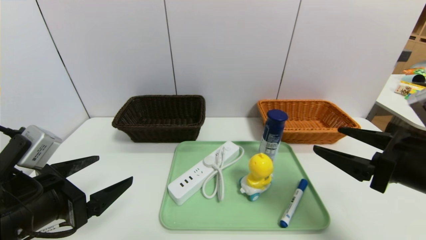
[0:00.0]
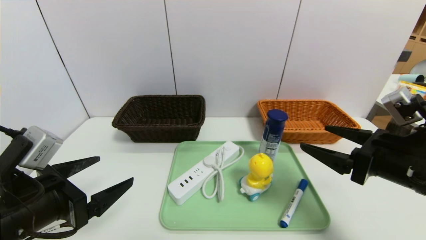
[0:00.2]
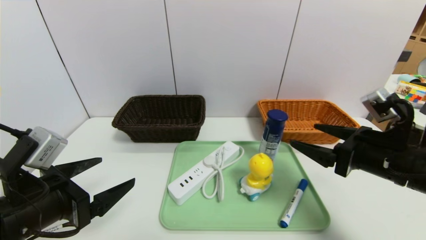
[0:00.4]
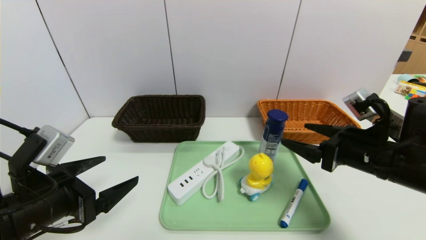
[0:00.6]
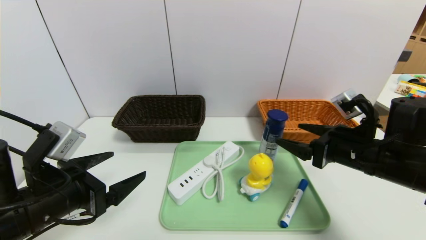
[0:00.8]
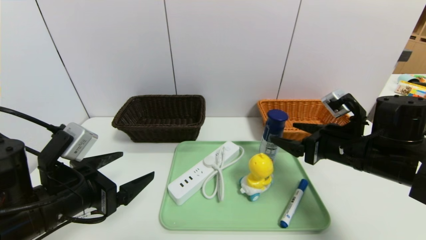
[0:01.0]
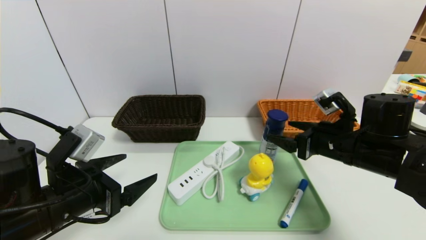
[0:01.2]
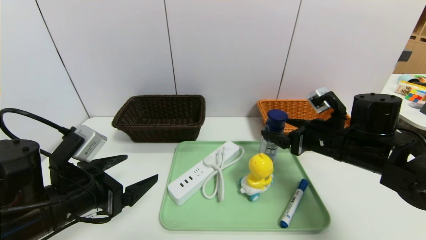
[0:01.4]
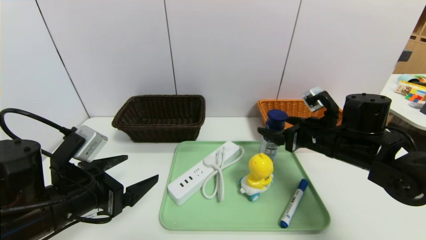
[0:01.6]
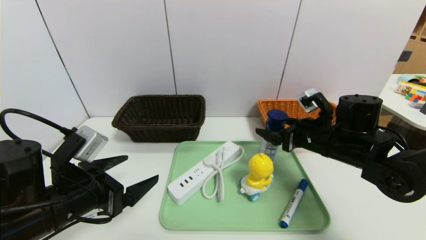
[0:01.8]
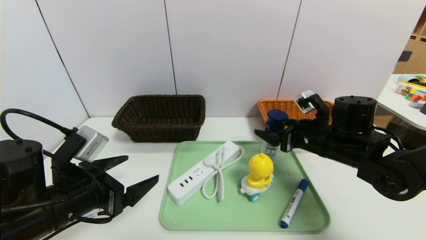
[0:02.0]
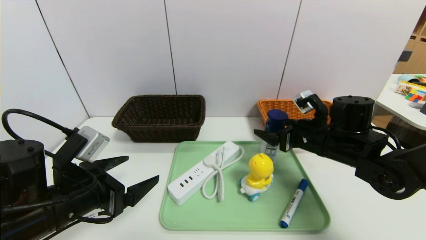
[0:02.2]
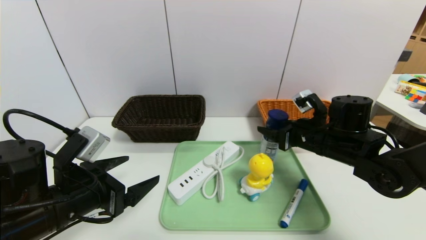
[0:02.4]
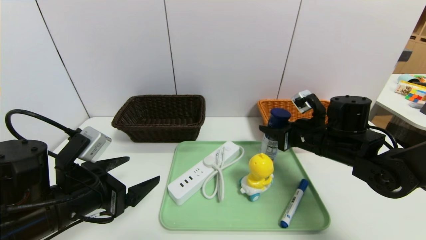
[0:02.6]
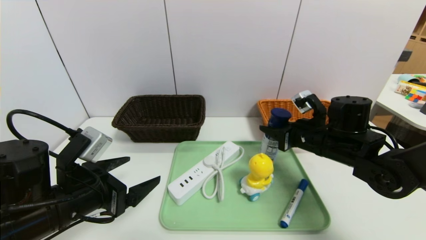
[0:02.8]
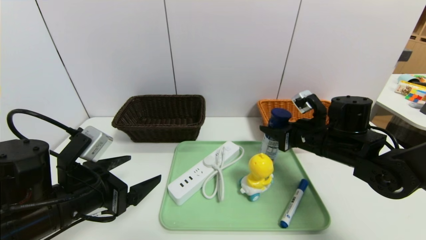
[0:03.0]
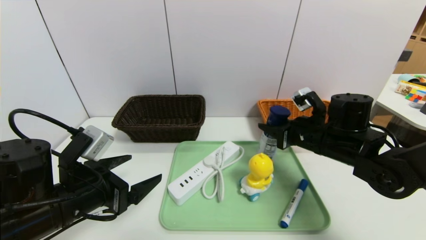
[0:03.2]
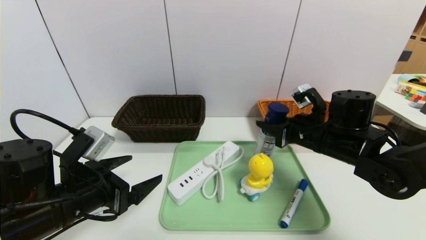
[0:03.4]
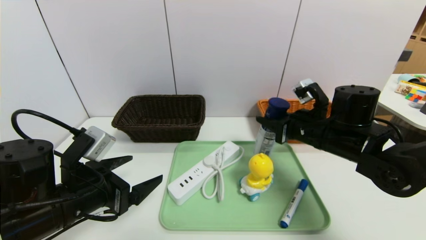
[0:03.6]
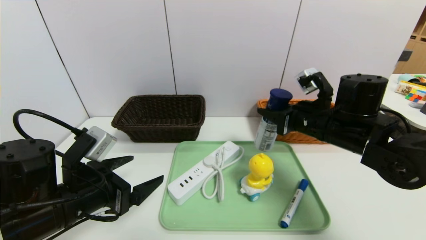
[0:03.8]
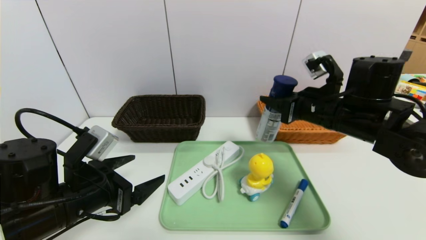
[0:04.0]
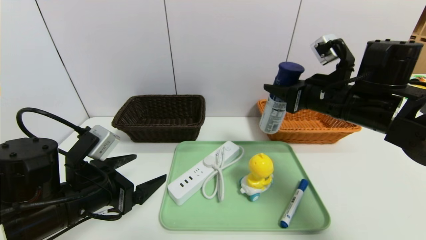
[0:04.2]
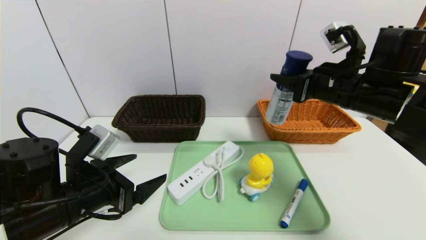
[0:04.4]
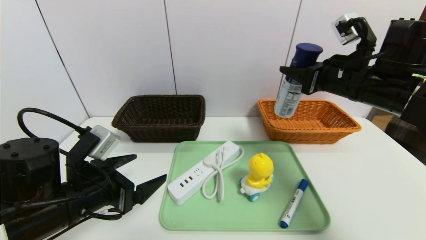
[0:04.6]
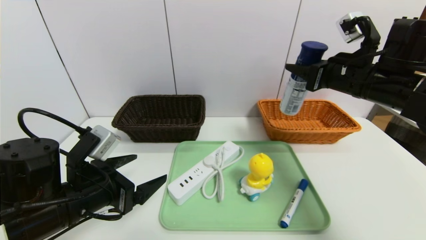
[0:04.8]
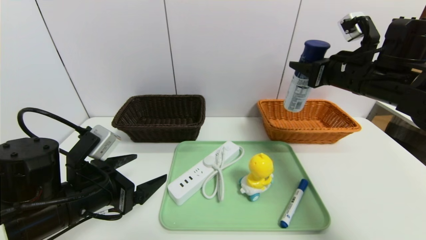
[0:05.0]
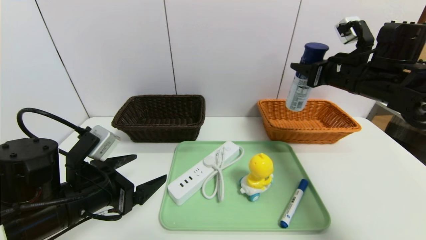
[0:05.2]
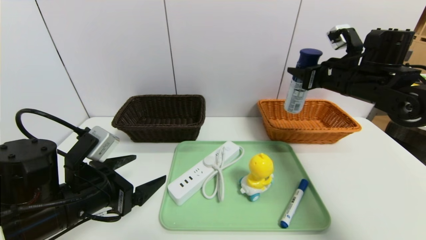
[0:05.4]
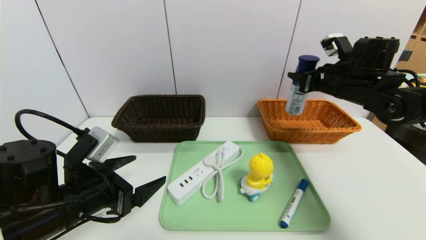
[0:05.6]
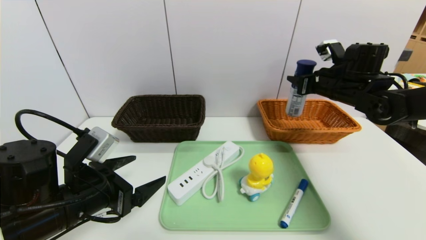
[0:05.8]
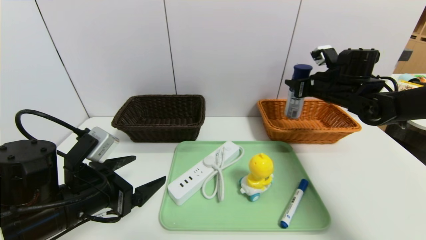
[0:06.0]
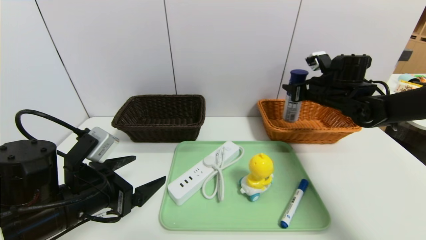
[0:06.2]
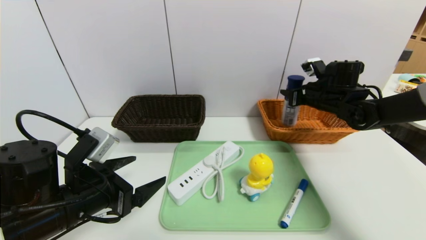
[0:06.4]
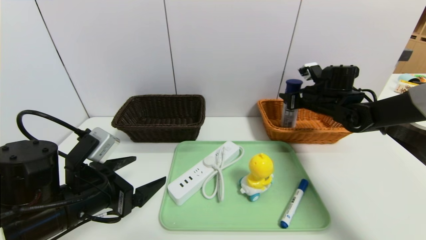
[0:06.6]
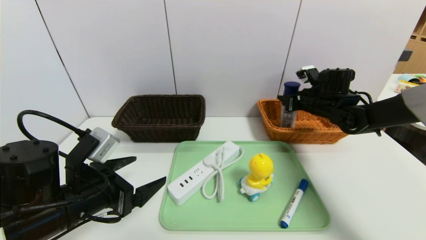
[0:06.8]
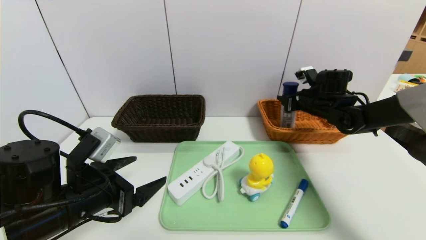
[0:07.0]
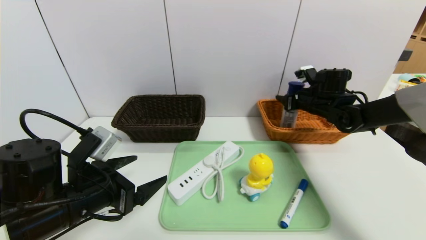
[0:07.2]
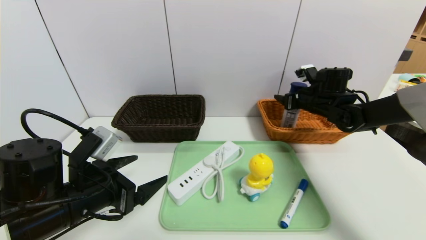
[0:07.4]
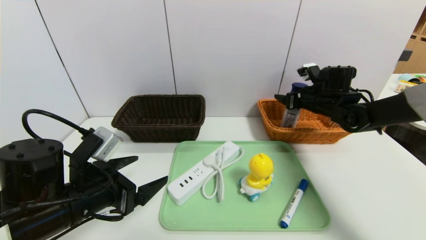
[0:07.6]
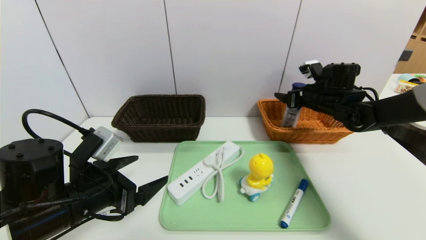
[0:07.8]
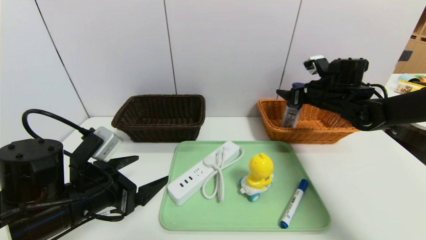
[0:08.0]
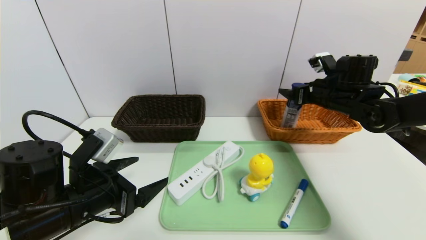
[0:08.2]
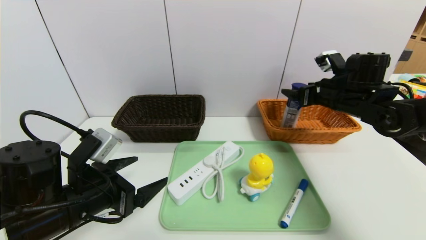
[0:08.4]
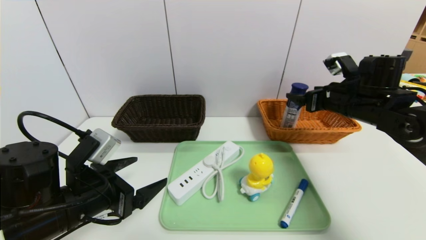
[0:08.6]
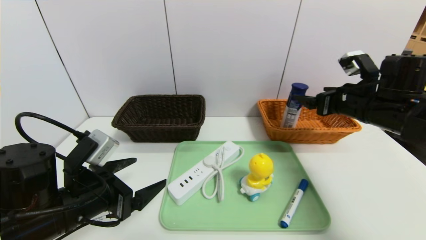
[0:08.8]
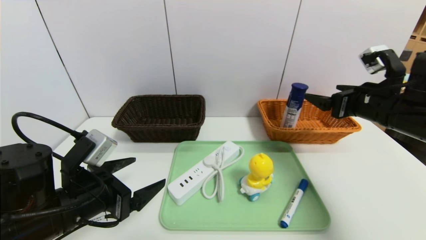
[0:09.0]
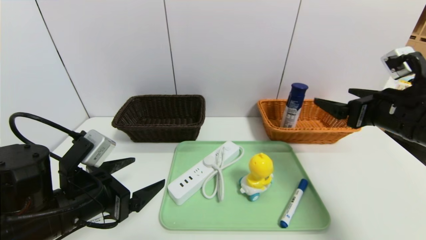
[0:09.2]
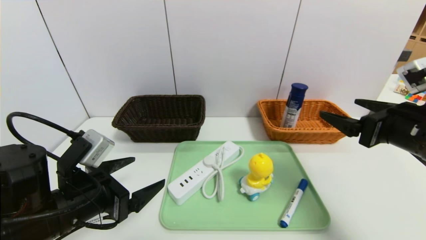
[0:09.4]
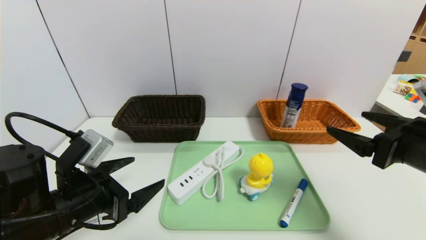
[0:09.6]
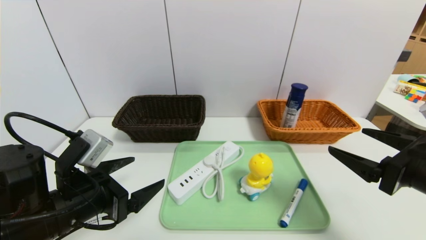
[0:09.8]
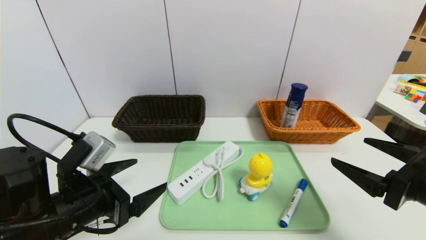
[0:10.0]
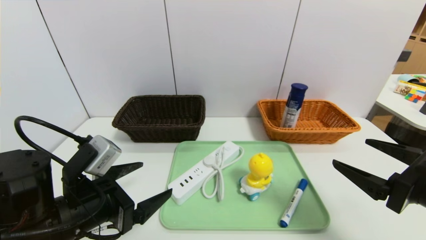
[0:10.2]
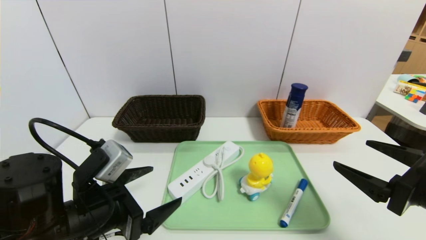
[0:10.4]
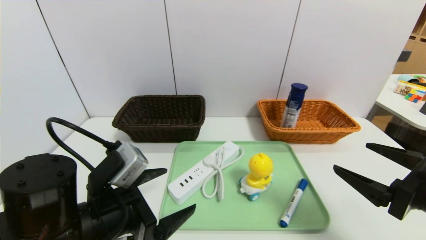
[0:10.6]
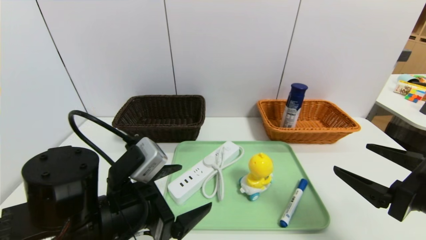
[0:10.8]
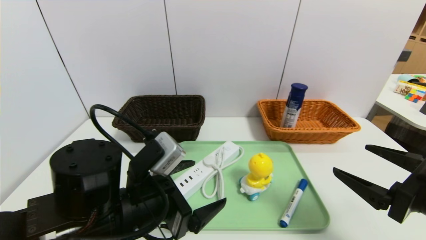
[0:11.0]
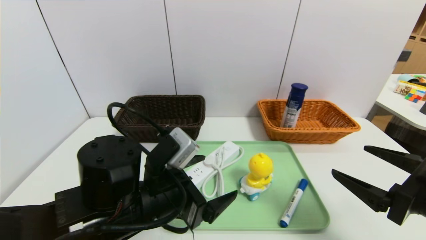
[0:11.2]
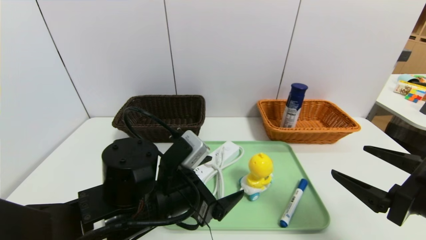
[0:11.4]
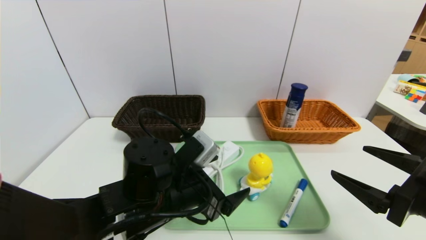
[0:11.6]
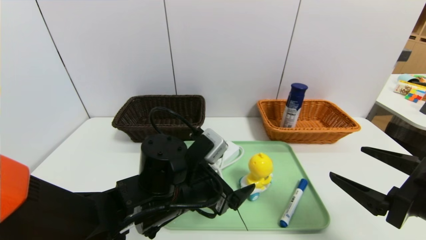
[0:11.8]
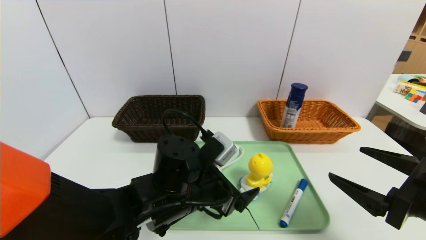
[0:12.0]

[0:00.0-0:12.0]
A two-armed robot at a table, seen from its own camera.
Task of the whole recording: place the food in the right basket with the right gripper, and place the non food items in the left basket with the left gripper.
Step, 0:00.0 to 0:07.2: Grasp the yogurt and put it in the right basket.
0:00.0 to 0:01.6: The right gripper heads forward and to the left, covering roughly 15 cm.
0:01.6 to 0:03.0: The right gripper closes up.
0:03.0 to 0:04.4: The right gripper travels upward by approximately 10 cm.
0:04.4 to 0:06.0: The right gripper shifts some 15 cm forward and to the right.
0:06.0 to 0:07.6: The right gripper ends up about 5 cm from where it was, and opens up.
0:07.6 to 0:09.0: The right gripper is displaced backward by roughly 15 cm.
0:09.0 to 0:10.4: The right gripper travels backward by roughly 15 cm.
0:10.4 to 0:12.0: The left gripper moves to the right and forward, some 15 cm.

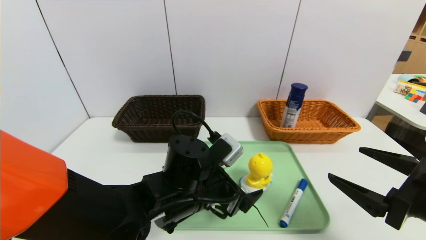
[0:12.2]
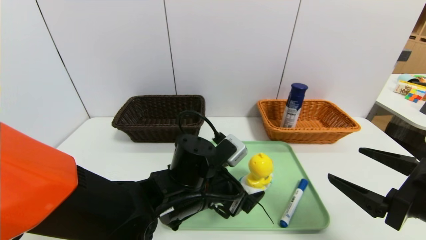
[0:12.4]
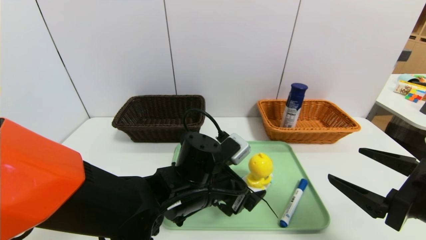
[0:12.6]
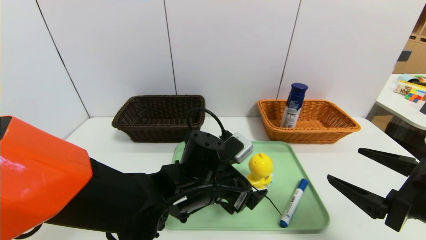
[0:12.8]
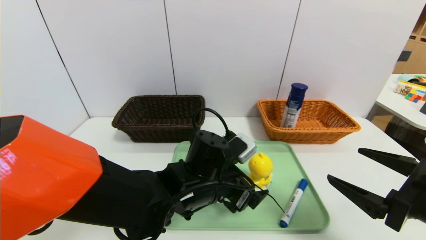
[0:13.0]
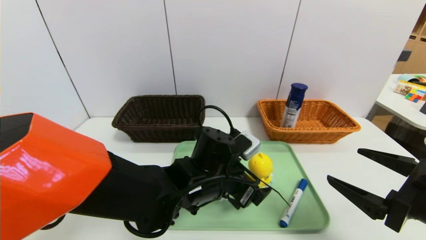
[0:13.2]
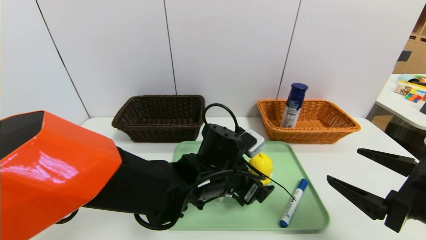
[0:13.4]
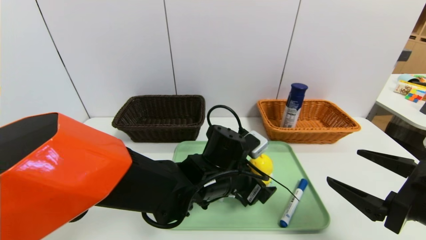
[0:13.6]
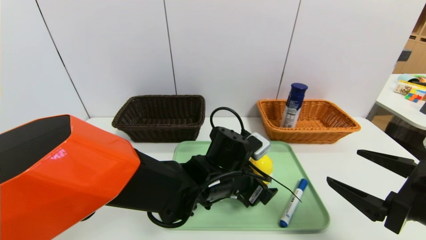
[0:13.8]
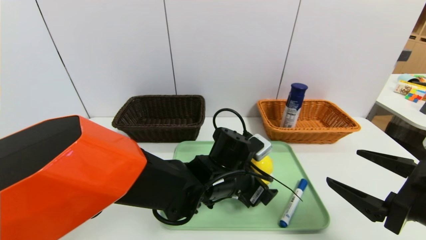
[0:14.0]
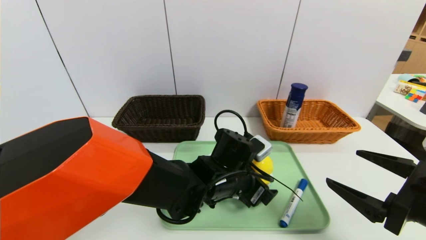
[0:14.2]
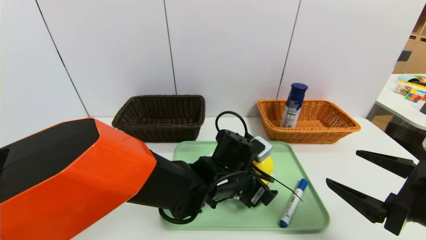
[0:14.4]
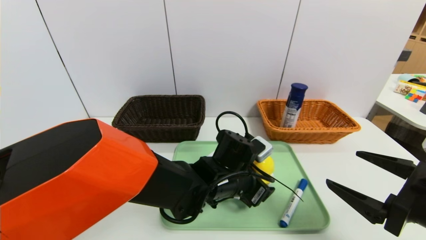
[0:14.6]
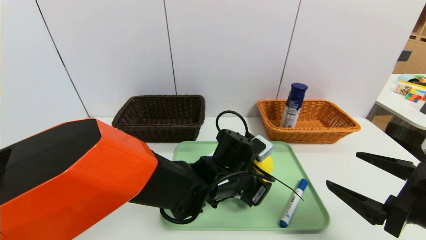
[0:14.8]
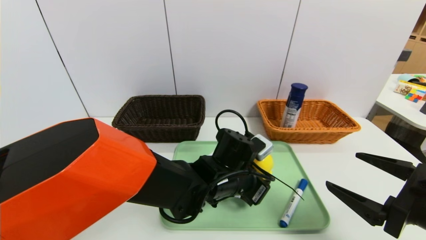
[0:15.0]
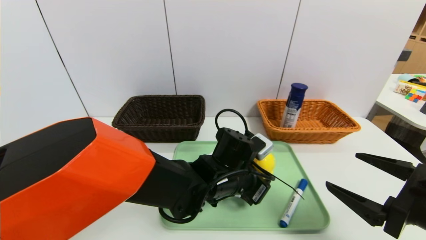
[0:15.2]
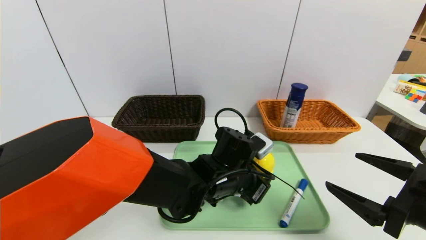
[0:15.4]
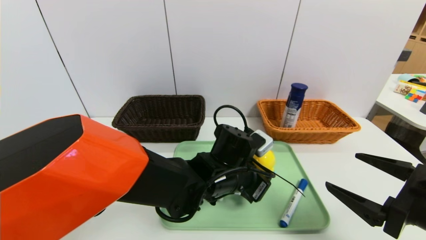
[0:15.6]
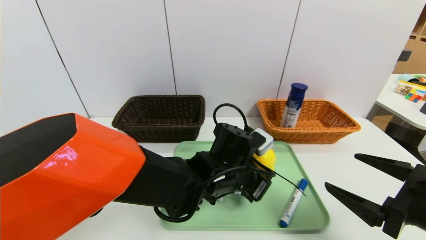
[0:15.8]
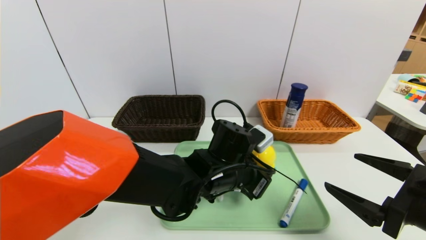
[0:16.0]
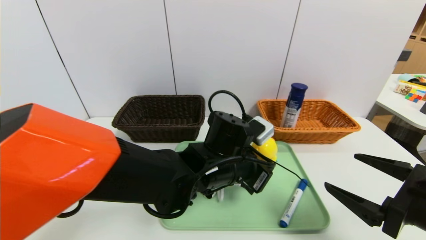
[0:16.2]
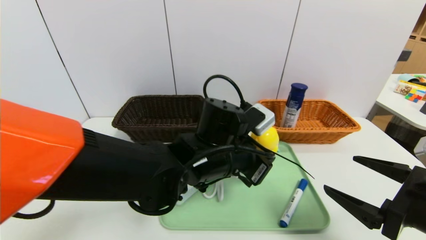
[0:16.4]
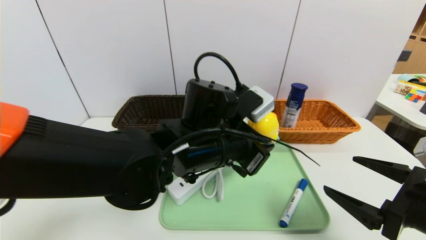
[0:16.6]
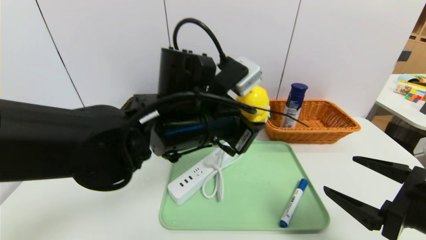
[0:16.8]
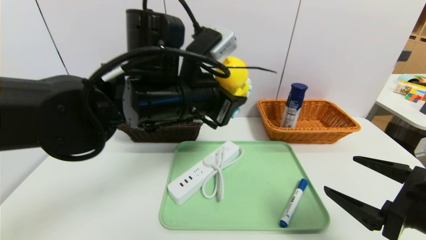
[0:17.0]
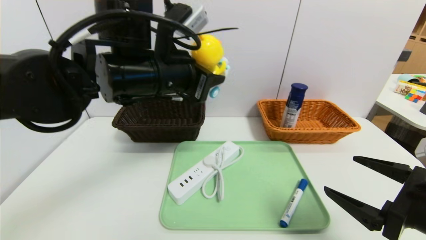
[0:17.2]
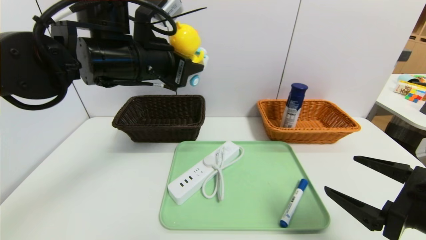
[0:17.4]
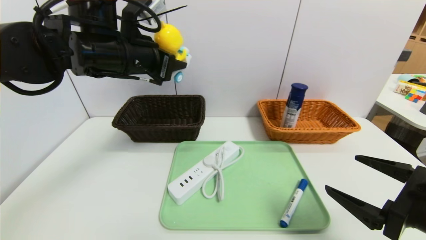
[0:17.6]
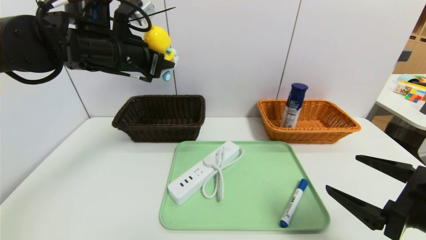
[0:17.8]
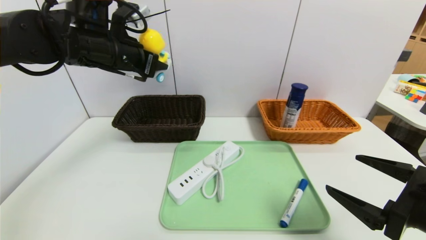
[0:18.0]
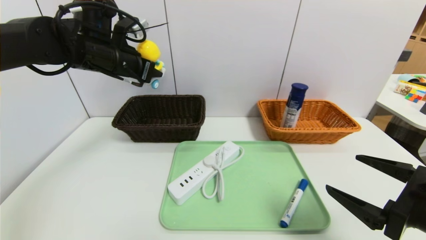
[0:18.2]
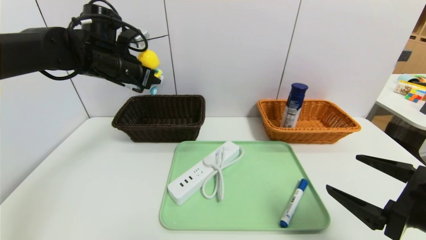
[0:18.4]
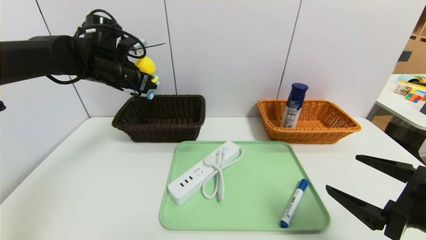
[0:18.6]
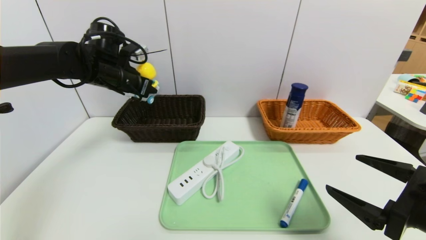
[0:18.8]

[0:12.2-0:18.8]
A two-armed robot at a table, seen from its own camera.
Task of the whole recording: place the food in the right basket with the right gripper, and place the non food items in the left basket with the left gripper.
0:12.2 to 0:13.8: The left gripper moves to the right, some 5 cm.
0:13.8 to 0:15.4: The left gripper closes.
0:15.4 to 0:17.2: The left gripper goes approximately 25 cm upward and to the left.
0:17.2 to 0:18.8: The left gripper moves forward and to the left, approximately 20 cm.
